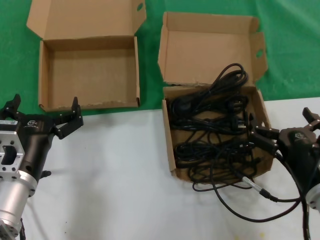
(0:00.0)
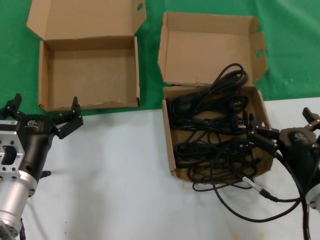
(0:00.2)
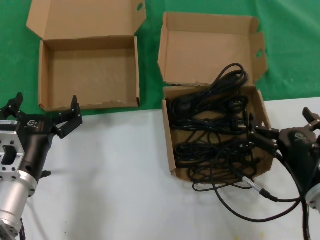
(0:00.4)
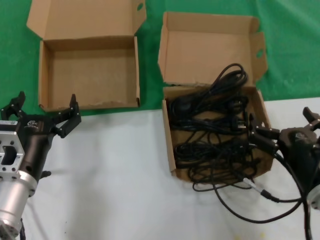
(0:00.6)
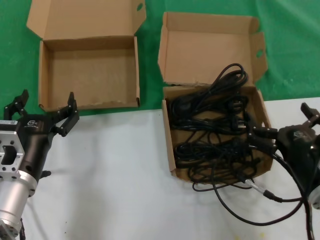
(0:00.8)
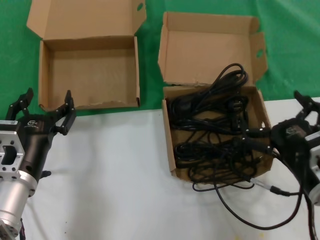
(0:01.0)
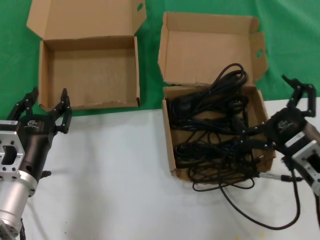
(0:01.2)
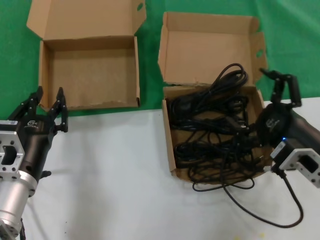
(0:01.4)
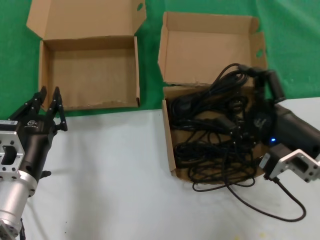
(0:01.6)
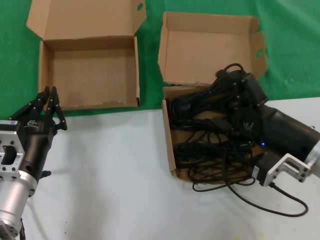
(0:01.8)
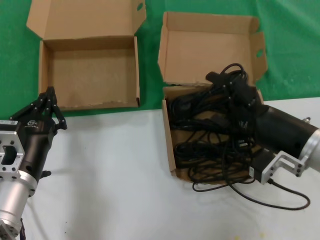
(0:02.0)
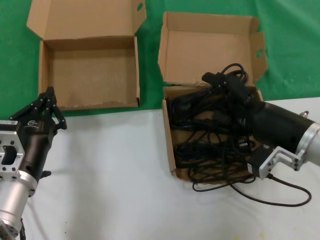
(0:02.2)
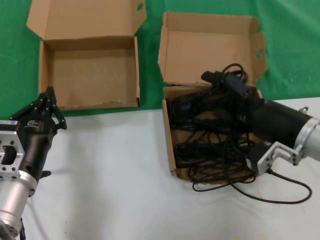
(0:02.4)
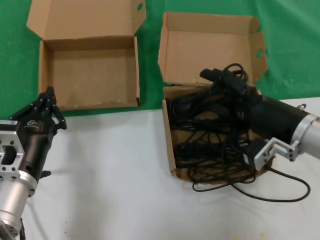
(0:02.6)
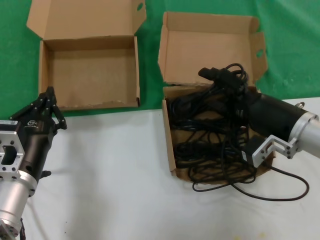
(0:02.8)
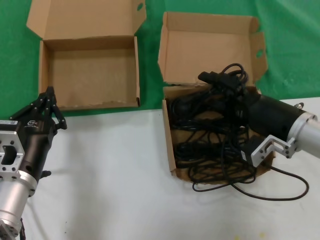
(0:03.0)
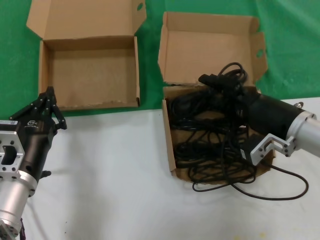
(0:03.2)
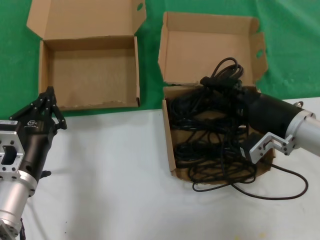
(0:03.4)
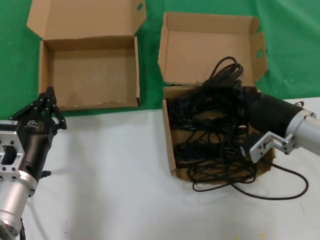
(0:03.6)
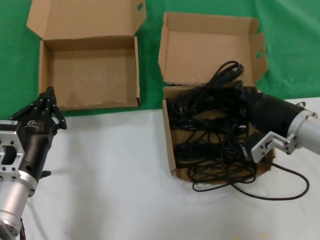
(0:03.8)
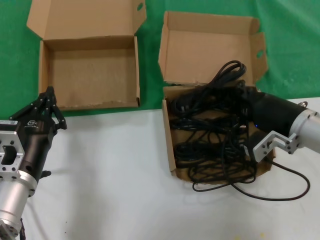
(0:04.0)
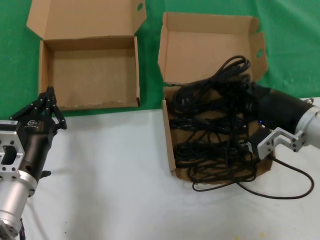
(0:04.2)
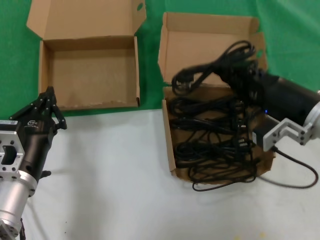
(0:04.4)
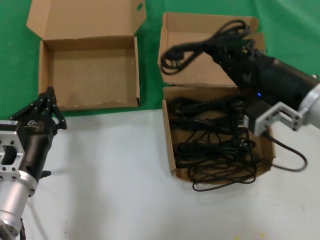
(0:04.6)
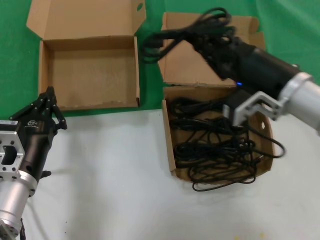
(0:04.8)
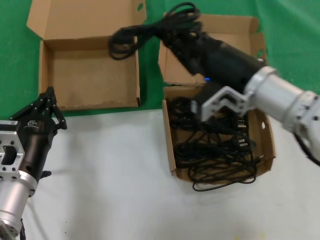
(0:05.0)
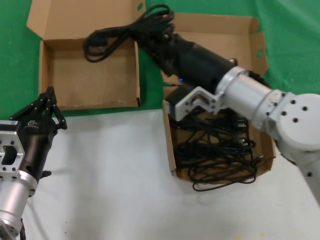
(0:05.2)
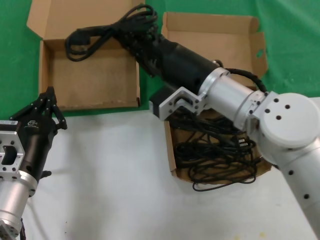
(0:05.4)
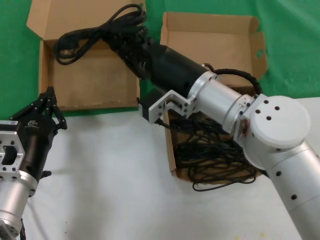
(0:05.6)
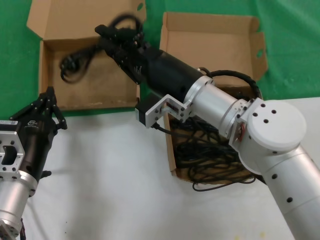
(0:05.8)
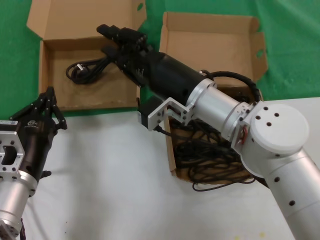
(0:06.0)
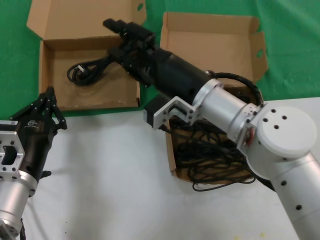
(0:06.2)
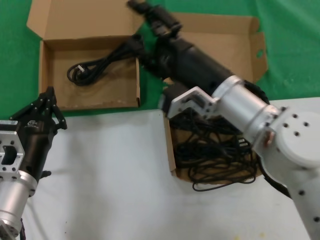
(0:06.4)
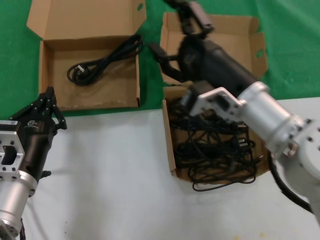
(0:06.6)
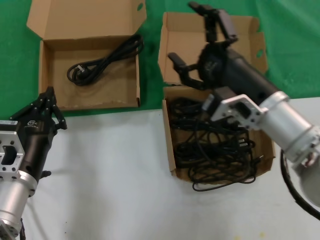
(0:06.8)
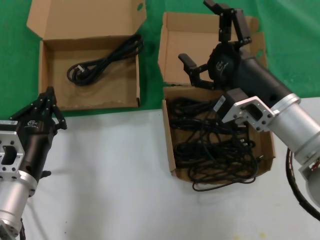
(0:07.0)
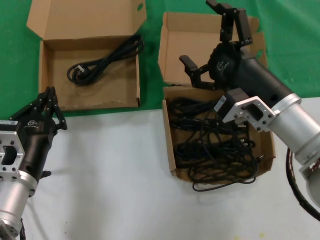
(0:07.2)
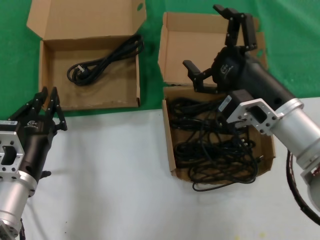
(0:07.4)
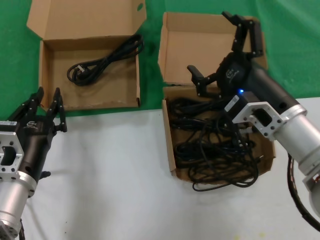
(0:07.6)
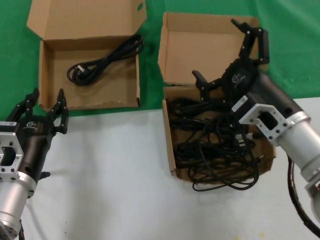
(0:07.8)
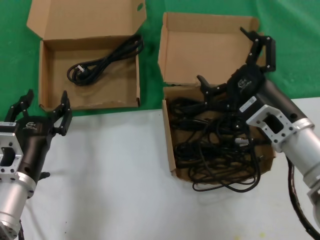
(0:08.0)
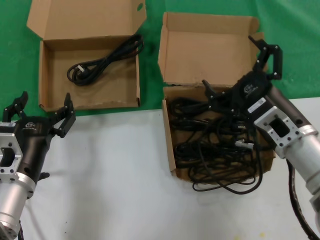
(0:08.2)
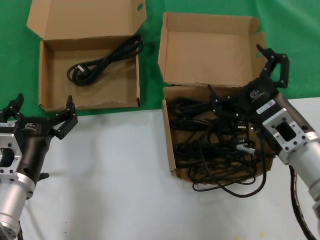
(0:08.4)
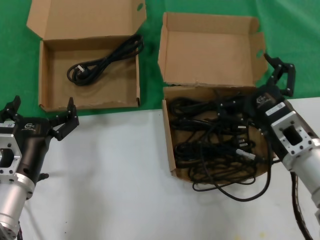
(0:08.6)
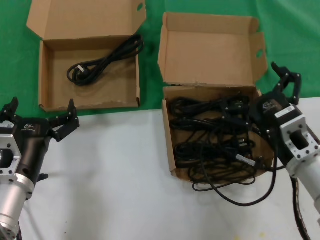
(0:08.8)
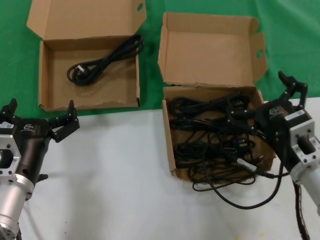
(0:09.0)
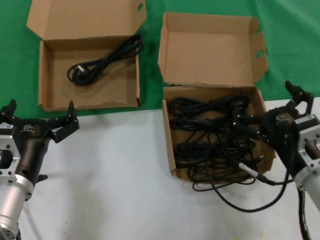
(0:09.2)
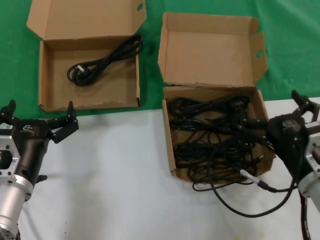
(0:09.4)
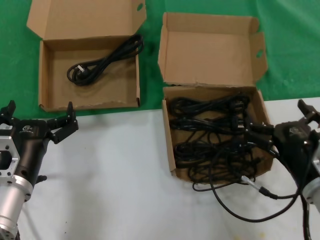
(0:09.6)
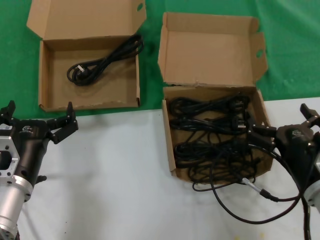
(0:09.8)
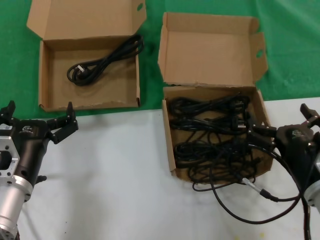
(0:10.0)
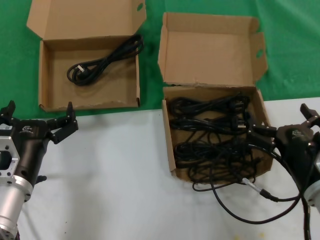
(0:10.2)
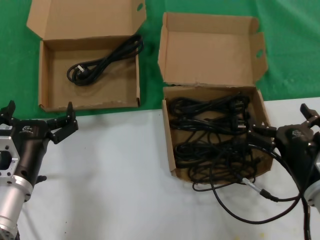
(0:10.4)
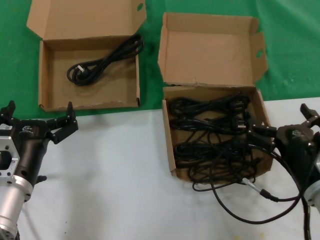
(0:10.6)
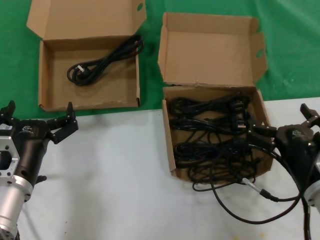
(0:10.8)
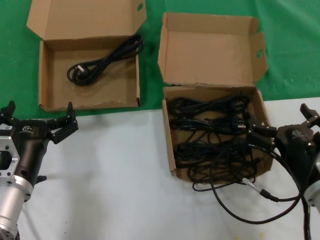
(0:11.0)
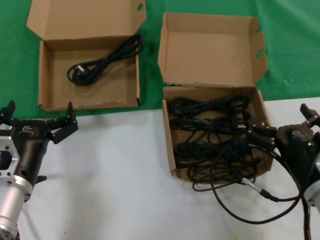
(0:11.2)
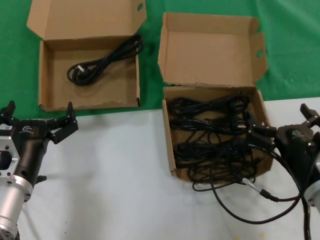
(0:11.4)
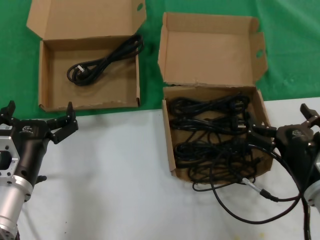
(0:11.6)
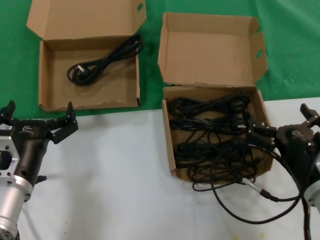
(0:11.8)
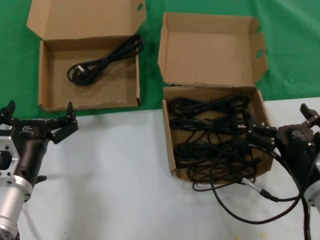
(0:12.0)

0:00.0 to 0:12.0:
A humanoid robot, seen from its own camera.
Task of the whole recording: take the parts from the box containing them and put them into an empty box.
Step, 0:00.0 to 0:03.6: Grasp the data cable.
Step, 0:03.8 to 0:05.8: Place the data cable in the another box.
0:00.0 to 0:01.6: The right hand moves upward, approximately 5 cm.
0:01.6 to 0:03.0: The right hand travels forward by roughly 5 cm.
0:03.0 to 0:04.4: The hands move only a little.
0:04.4 to 0:06.0: The right hand travels to the left by roughly 20 cm.
0:06.0 to 0:07.6: The right hand travels to the right and backward by some 15 cm.
0:07.6 to 0:09.0: The right hand heads downward, covering approximately 5 cm.
0:10.4 to 0:12.0: Neither hand changes place.

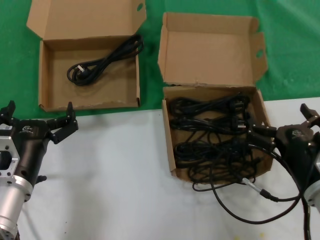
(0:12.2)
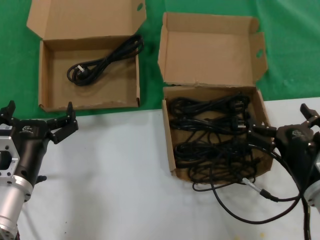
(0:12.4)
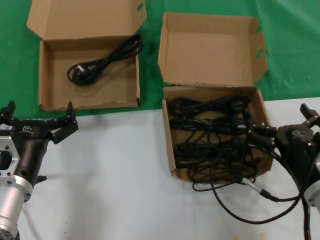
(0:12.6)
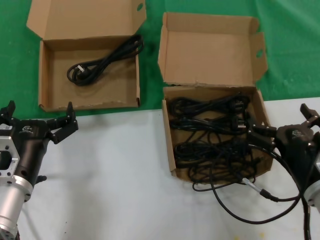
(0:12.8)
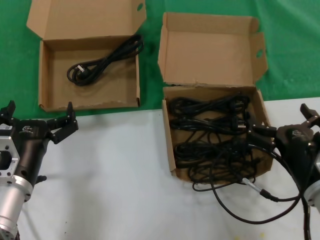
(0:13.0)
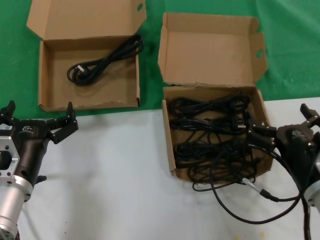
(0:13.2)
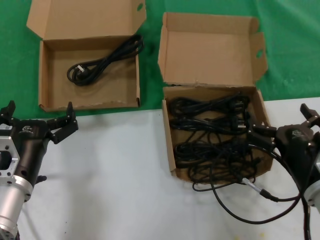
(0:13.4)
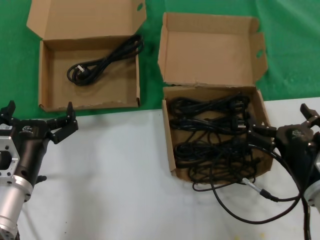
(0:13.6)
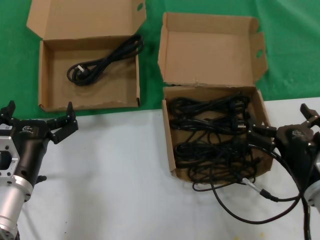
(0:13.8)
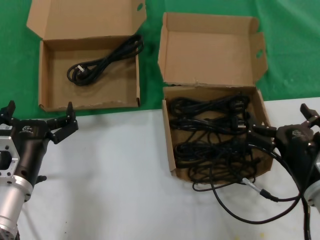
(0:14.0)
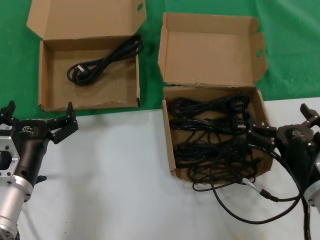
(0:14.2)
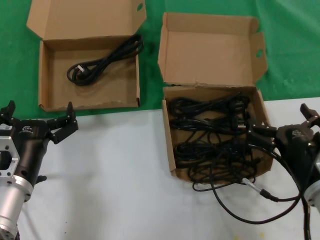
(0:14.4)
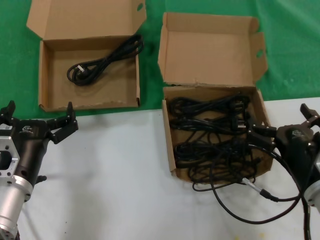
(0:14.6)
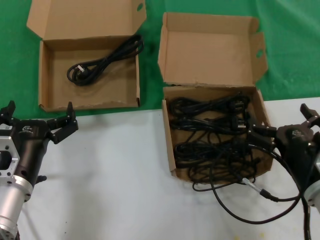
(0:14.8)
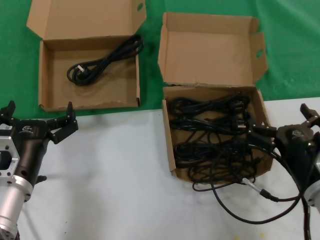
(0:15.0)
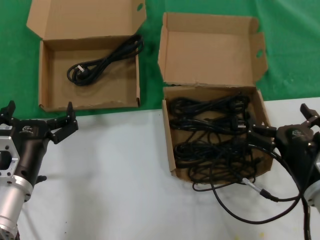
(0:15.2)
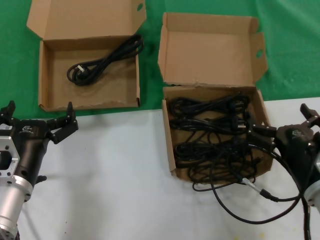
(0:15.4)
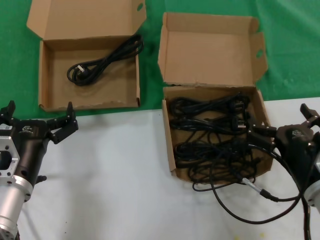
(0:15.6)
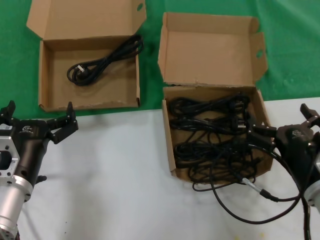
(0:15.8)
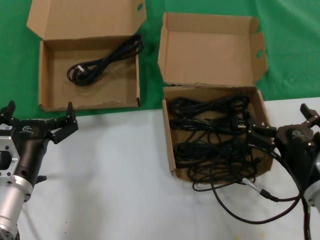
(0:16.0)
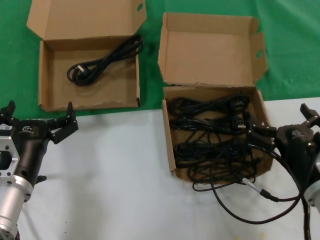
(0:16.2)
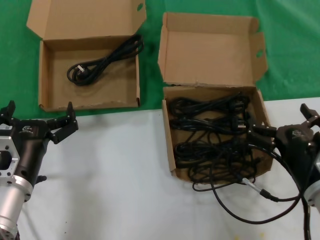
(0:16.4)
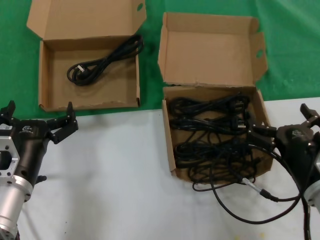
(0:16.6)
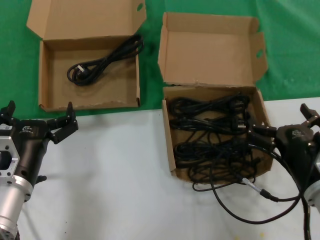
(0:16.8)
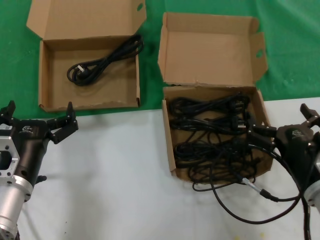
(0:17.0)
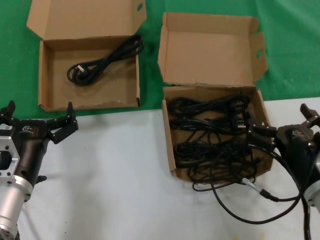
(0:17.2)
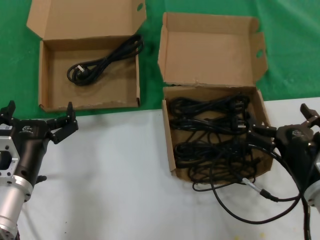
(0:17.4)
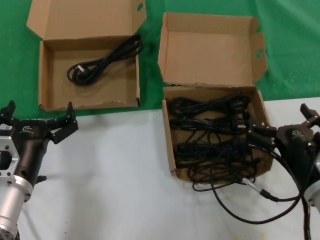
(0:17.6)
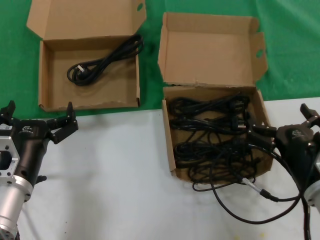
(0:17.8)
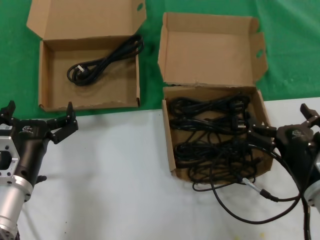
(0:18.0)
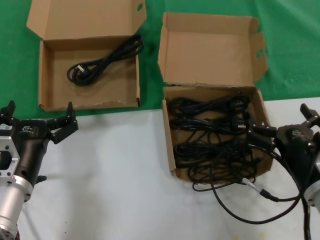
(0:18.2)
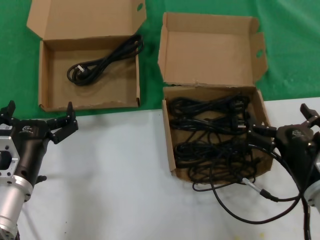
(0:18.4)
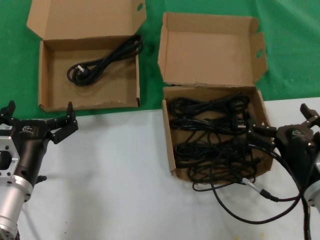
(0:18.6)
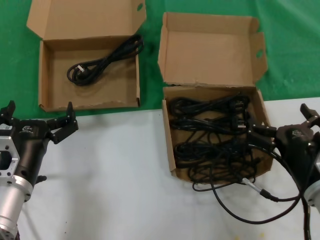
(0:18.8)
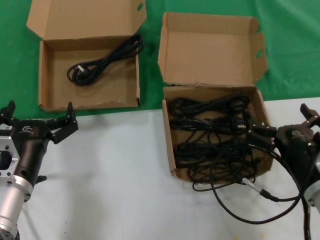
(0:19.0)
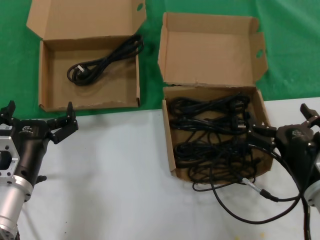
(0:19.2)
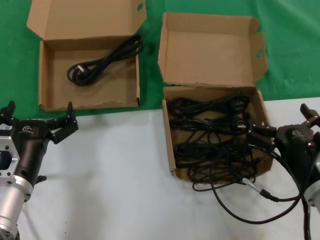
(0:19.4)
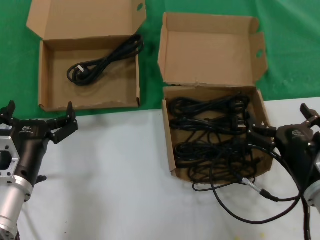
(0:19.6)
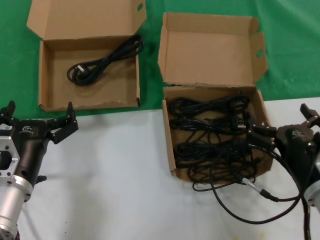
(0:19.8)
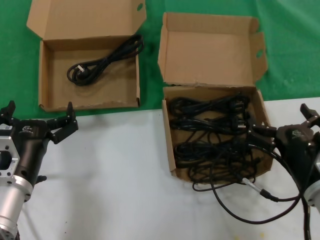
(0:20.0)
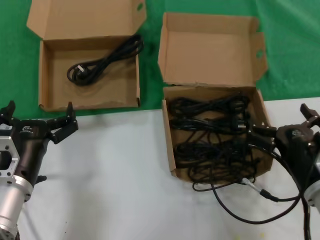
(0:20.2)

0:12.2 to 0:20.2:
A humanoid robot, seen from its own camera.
Task of the whole recording: take the parts from the box containing them and put them into an empty box.
0:12.2 to 0:20.2: The two hands keep their place.

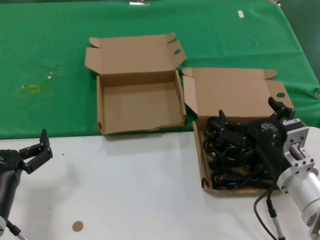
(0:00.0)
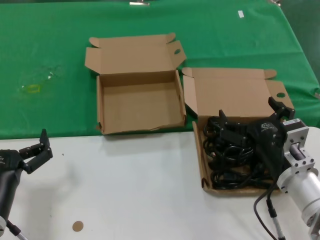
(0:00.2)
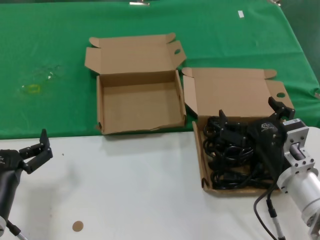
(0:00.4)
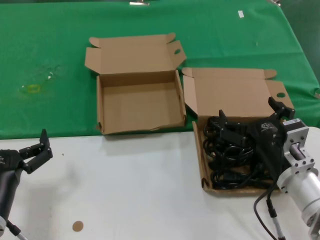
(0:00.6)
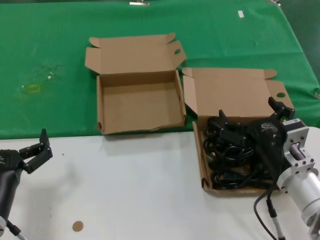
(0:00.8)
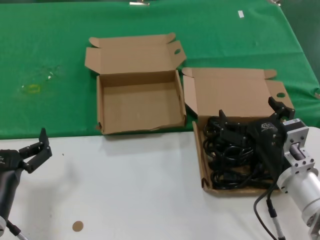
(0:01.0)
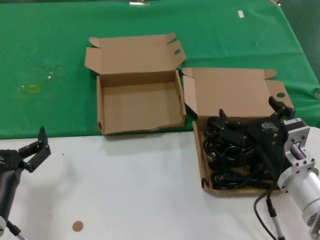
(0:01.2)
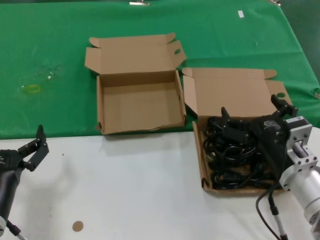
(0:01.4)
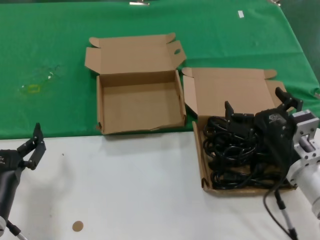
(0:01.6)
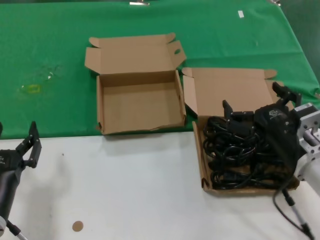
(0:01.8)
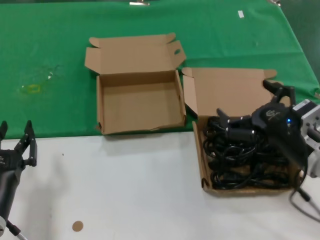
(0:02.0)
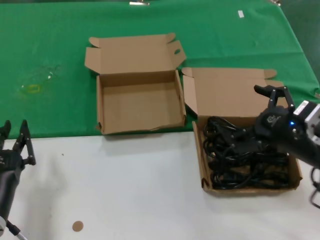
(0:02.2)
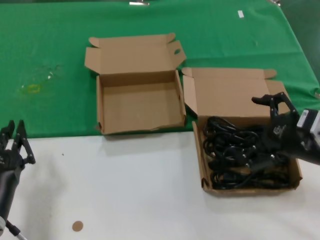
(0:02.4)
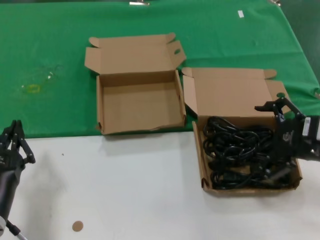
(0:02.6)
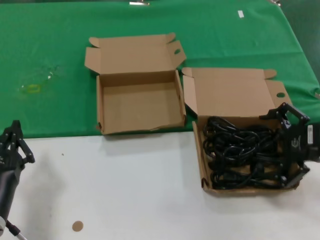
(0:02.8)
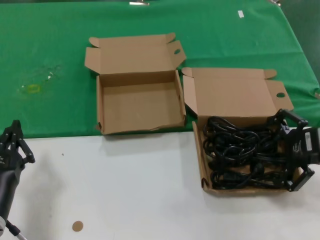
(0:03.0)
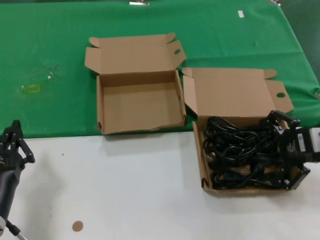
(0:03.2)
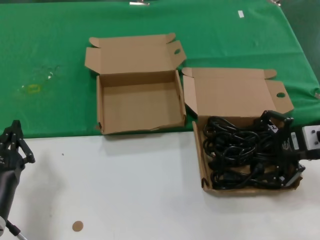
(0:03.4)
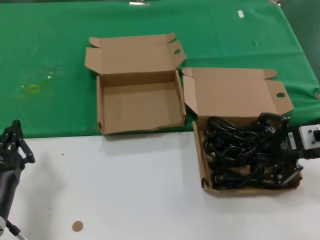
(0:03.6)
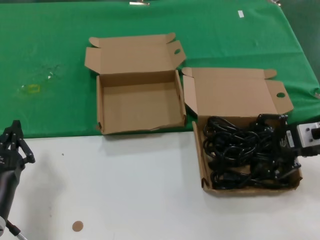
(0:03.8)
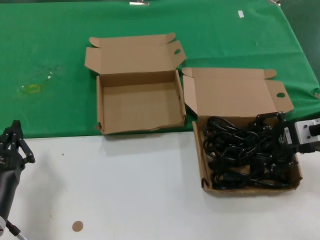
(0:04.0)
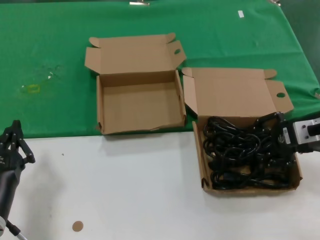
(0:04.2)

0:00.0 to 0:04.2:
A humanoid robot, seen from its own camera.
Task of the whole recording: take the parts from the box containing them and put them into an empty box.
0:00.0 to 0:01.4: Both hands stay put.
0:01.4 to 0:02.8: The right hand goes roughly 20 cm upward and to the right.
0:02.8 to 0:04.2: The right hand goes about 5 cm forward.
